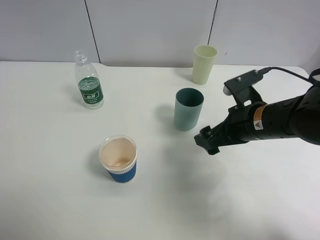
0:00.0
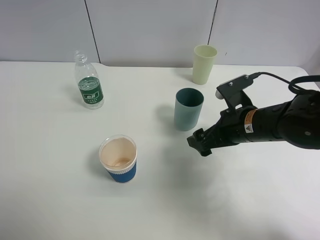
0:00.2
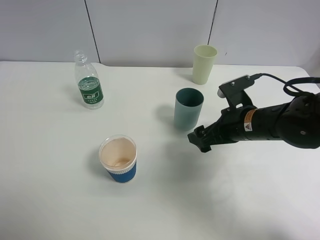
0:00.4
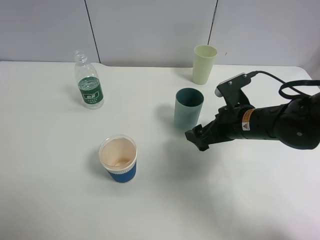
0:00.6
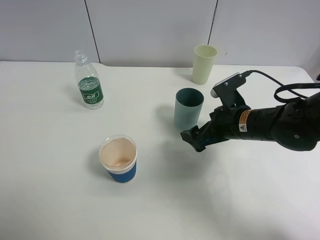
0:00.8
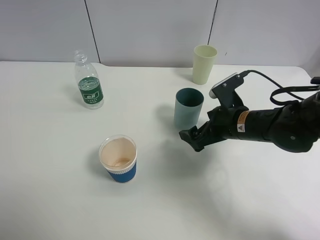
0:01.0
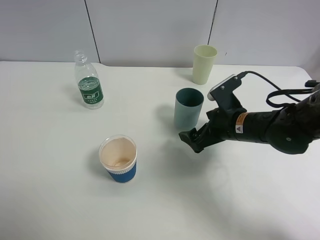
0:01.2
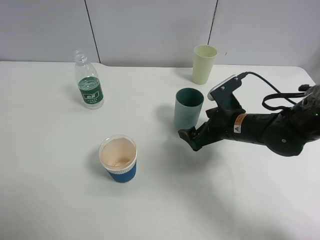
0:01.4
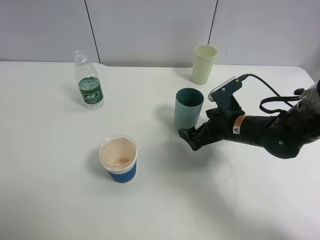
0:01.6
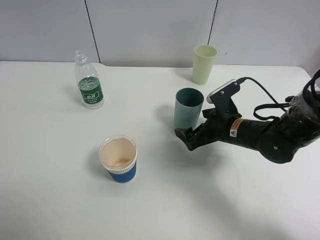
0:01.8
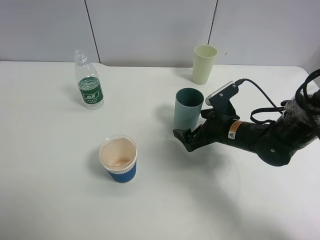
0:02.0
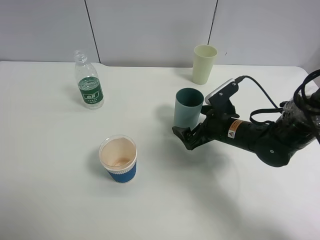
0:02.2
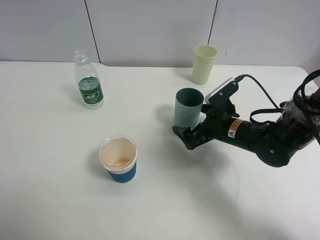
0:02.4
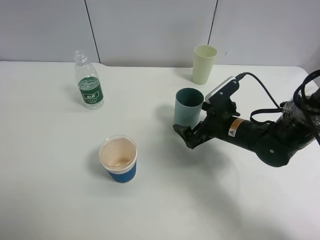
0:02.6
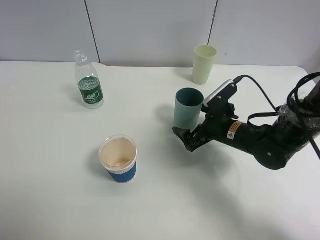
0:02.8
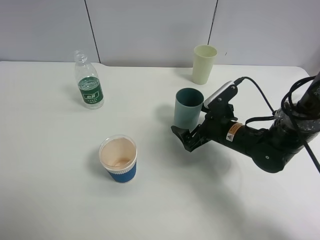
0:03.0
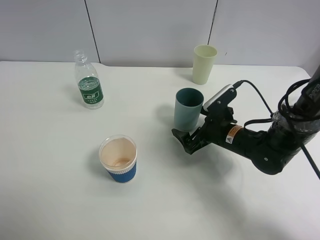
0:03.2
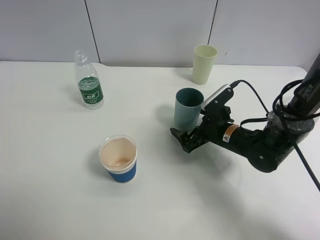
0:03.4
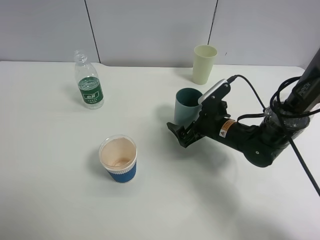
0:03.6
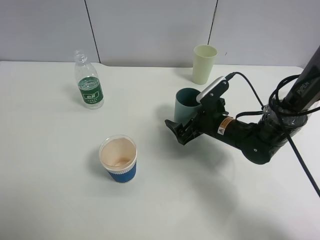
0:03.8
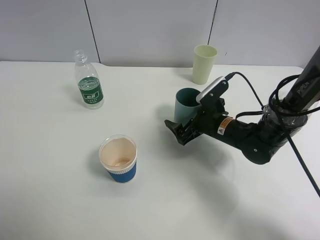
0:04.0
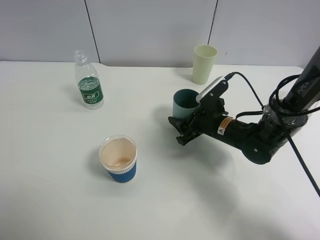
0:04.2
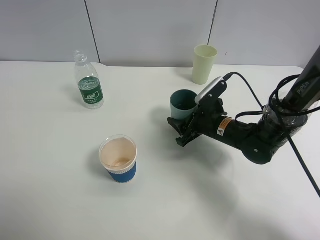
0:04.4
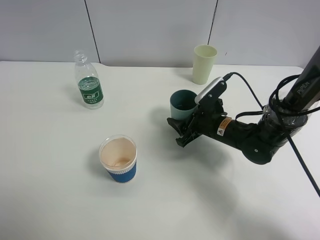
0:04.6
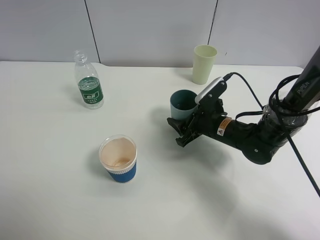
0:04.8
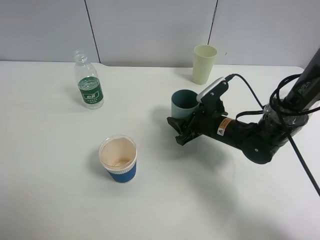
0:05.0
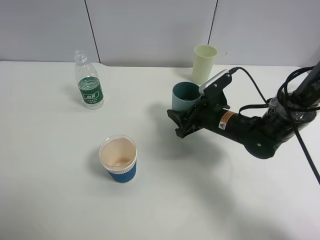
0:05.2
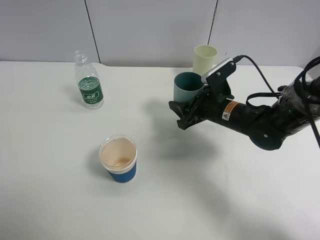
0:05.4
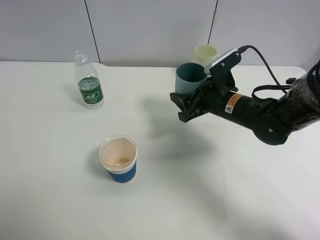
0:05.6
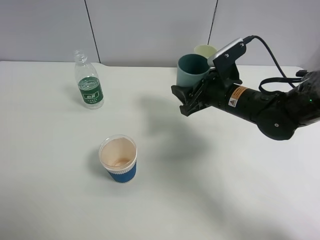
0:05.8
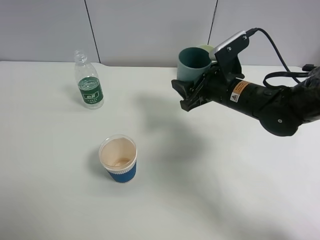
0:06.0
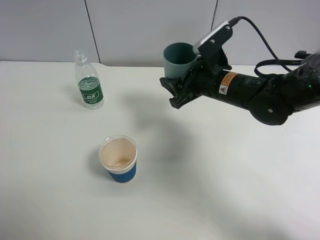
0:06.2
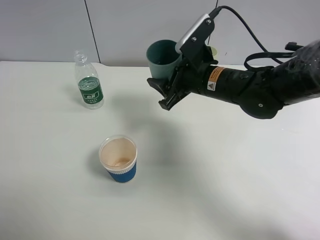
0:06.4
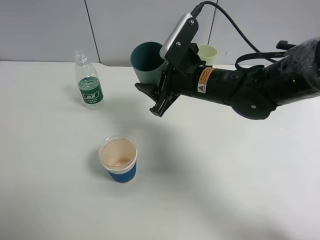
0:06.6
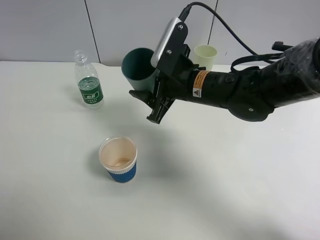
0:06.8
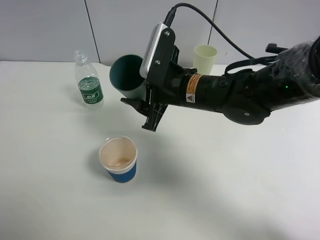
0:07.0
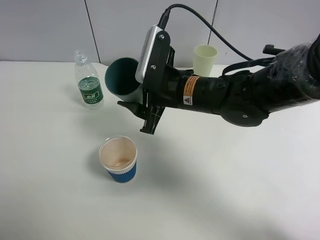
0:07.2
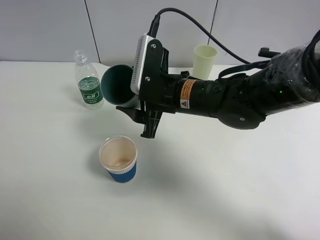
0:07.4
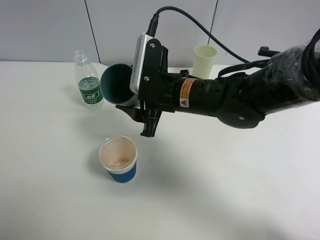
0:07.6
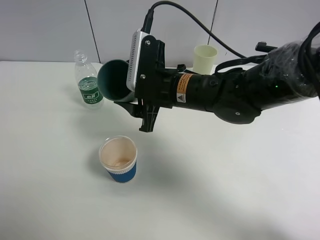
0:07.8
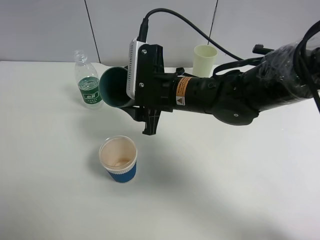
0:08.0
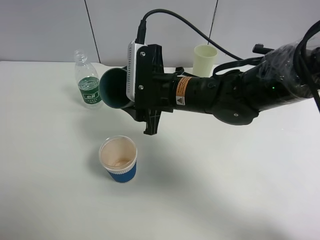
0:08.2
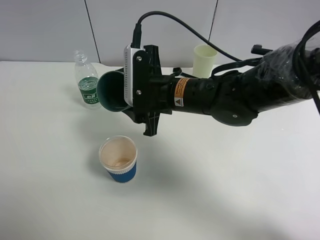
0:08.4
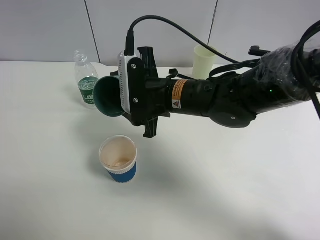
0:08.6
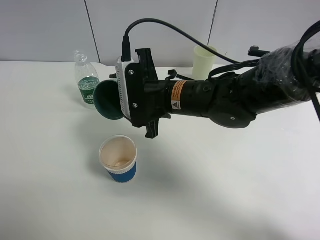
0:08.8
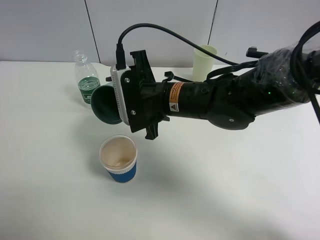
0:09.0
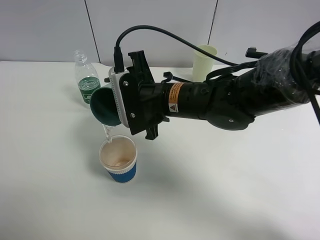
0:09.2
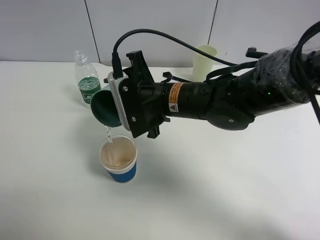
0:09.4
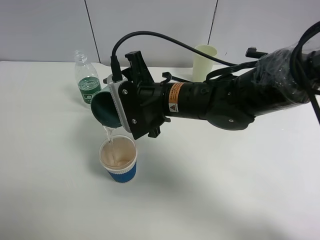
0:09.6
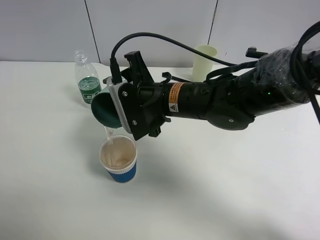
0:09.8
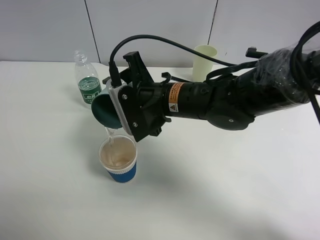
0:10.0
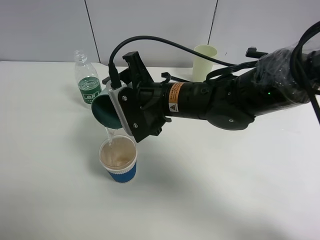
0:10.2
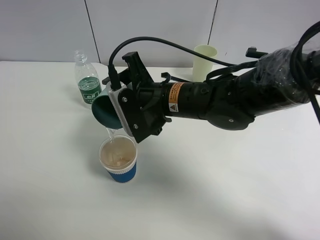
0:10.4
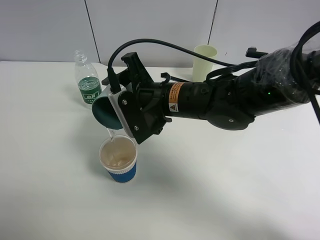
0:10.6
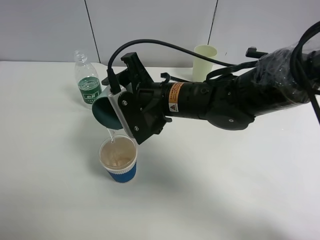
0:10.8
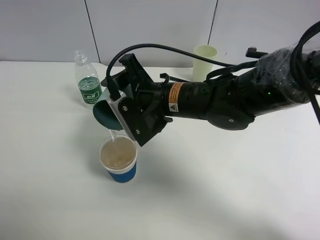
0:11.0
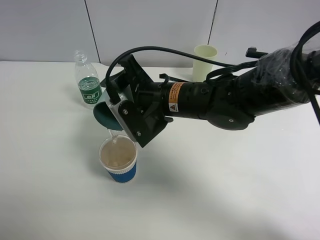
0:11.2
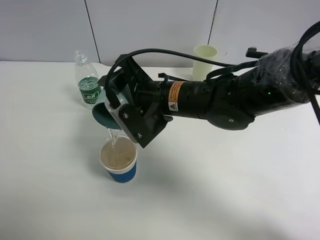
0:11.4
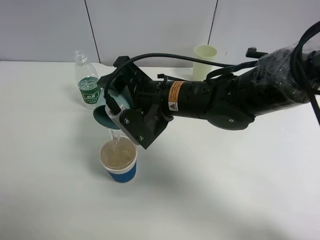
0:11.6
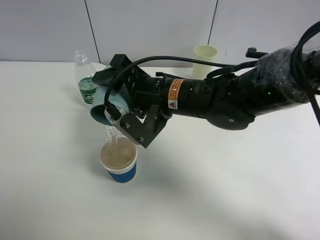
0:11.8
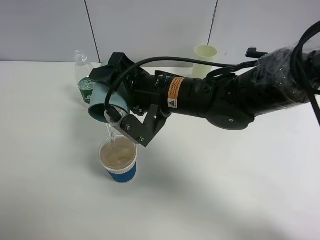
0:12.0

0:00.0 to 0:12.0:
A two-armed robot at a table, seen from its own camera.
Task of the whole recording: use a clamp to hold the bottle of the drink, pour the beverage into a random cup, then clamp the cup containing the drink and pour the drink into another random cup.
Step, 0:00.0 to 0:05.2: Pick up the blue plastic cup bottle with right gripper.
0:00.0 to 0:01.6: The right gripper travels downward by roughly 5 cm.
0:01.6 to 0:03.0: The grippers move only a little.
0:03.0 to 0:04.4: The right gripper closes.
0:04.4 to 0:06.0: The right gripper heads upward, covering roughly 10 cm.
0:06.0 to 0:07.6: The right gripper heads to the left, covering some 10 cm.
0:09.0 to 0:10.4: The grippers make only small movements.

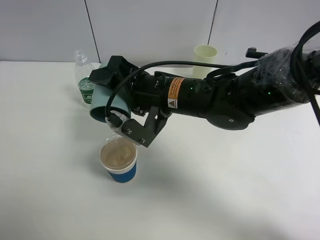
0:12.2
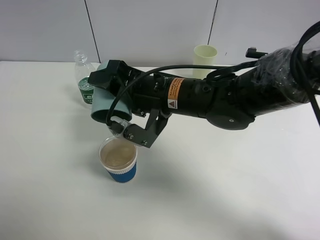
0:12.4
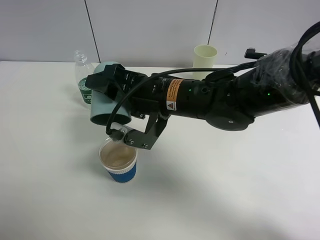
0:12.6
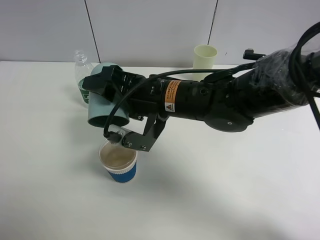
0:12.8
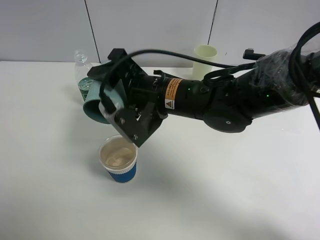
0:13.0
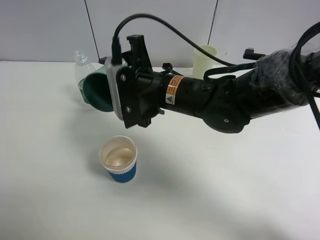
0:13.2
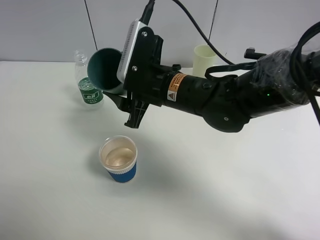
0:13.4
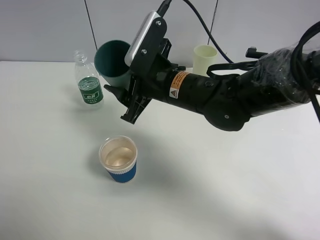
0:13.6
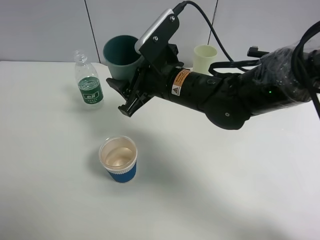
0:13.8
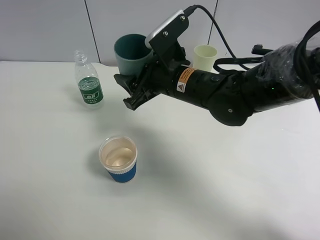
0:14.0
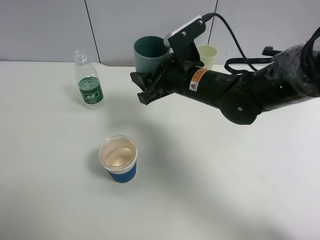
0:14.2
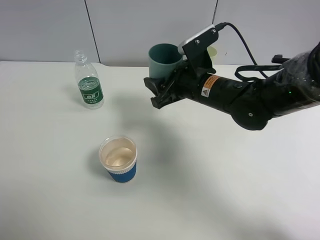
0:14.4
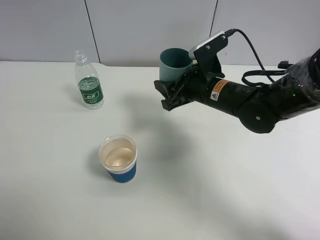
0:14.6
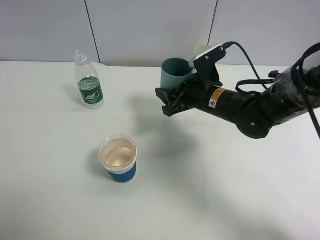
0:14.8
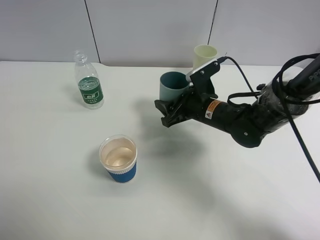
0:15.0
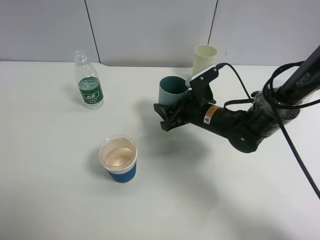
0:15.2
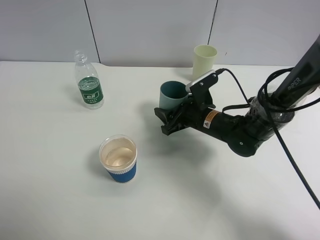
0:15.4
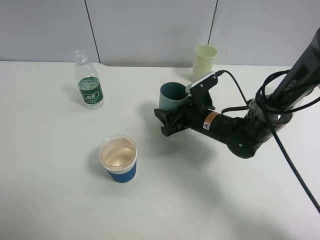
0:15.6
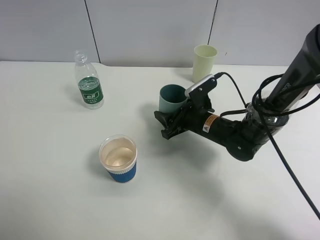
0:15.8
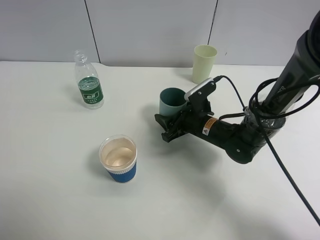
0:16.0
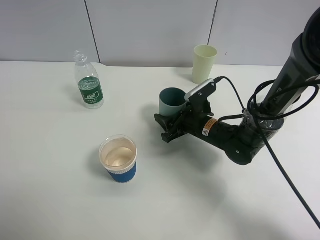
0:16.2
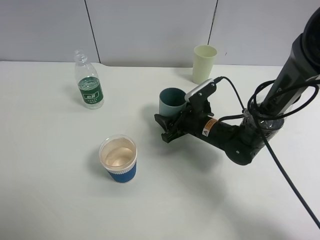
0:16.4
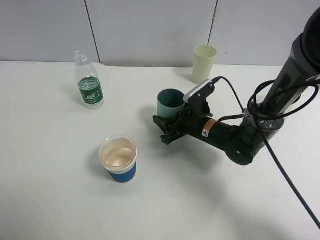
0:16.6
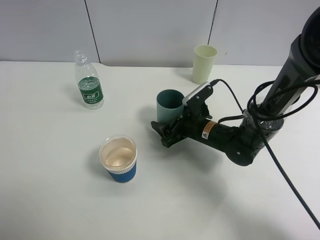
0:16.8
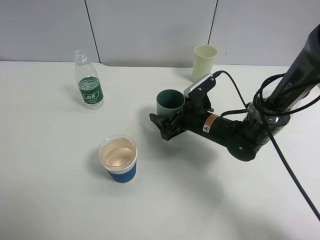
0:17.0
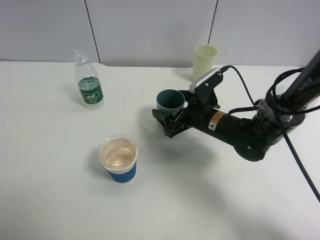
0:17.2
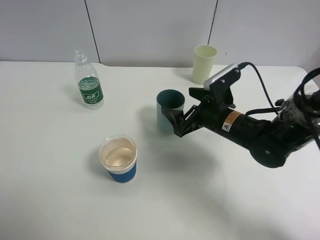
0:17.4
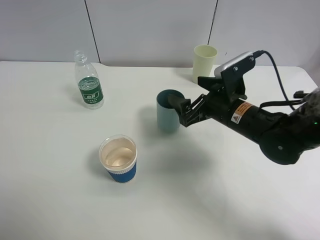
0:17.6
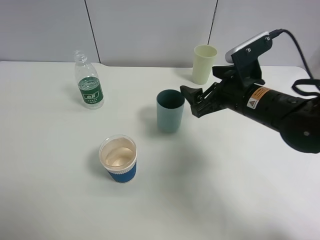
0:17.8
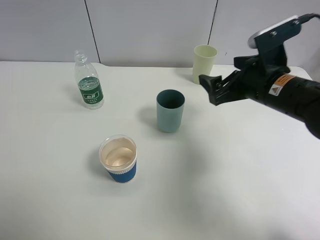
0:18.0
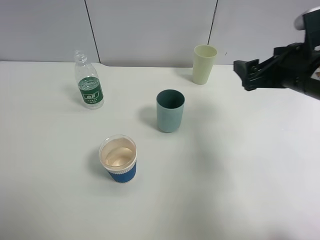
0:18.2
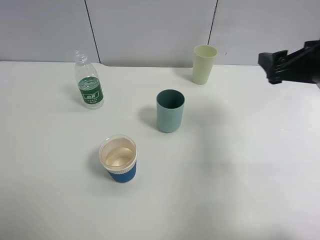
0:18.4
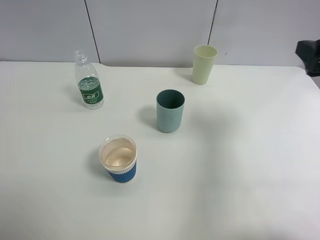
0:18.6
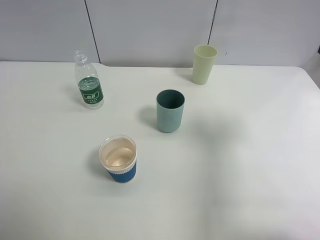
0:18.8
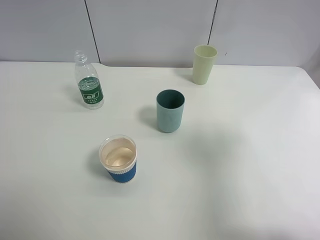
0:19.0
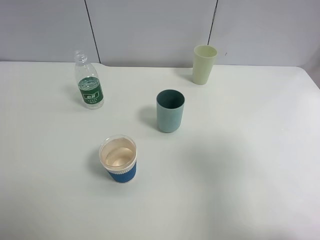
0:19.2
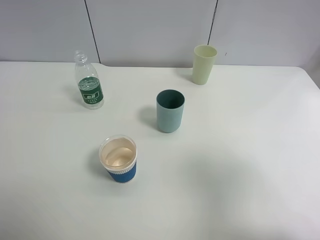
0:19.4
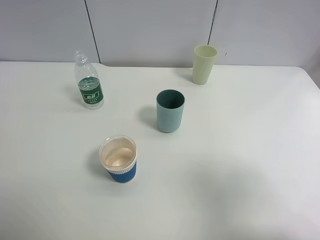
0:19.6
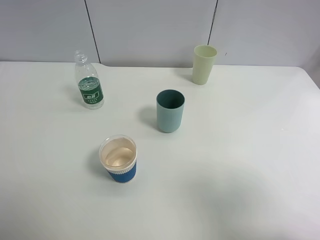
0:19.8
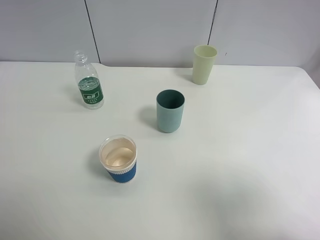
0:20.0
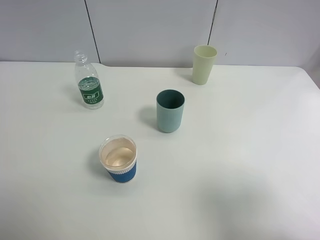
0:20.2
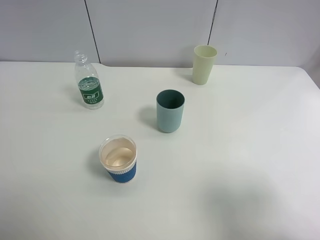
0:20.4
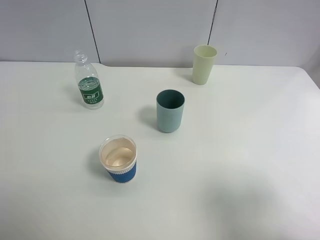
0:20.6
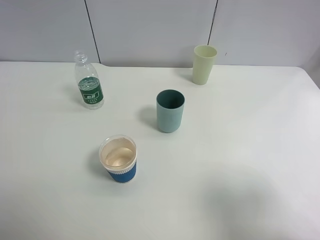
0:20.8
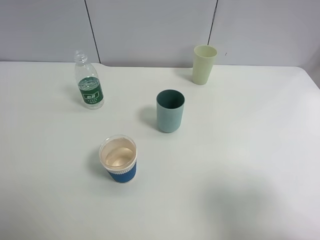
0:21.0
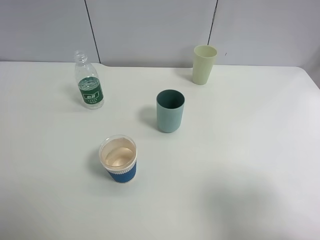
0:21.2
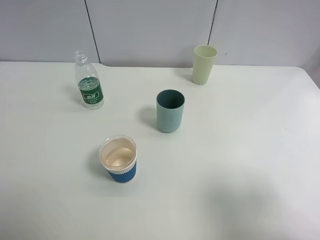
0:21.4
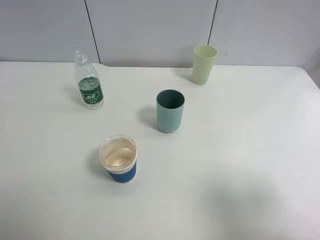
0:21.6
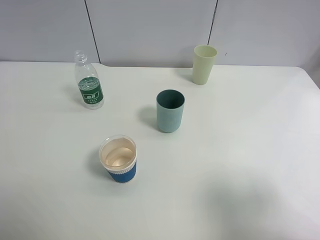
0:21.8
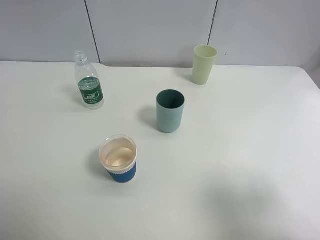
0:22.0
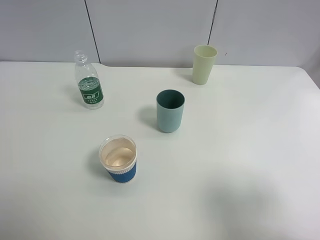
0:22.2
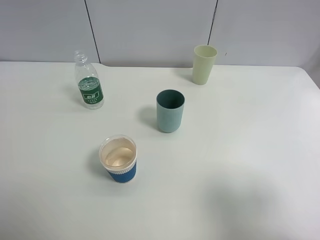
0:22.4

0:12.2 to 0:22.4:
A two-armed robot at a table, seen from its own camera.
Task of the whole recording: use a clamp to hold the bottle of the drink, pour the beverage into a random cup, then clamp the cup containing the drink and pour the drink into another random cup.
Step, 0:13.4 to 0:17.4: Place the blue plastic cup on the table with right gripper.
0:13.6 to 0:15.2: The right gripper moves downward and to the right, some 15 cm.
0:15.2 to 0:16.6: The grippers move only a little.
0:16.6 to 0:18.0: The right gripper goes about 20 cm upward and to the right, and opens up.
0:18.0 to 0:19.4: The right gripper shifts some 25 cm backward, upward and to the right.
0:19.4 to 0:21.0: The right gripper changes place by about 5 cm.
0:21.0 to 0:22.4: Neither gripper changes place.
